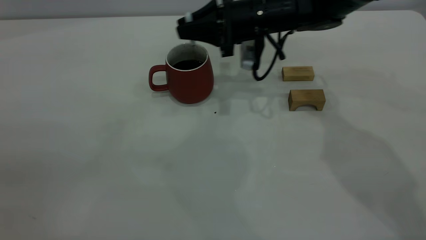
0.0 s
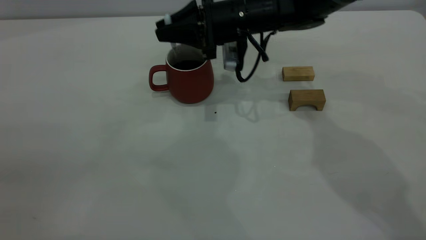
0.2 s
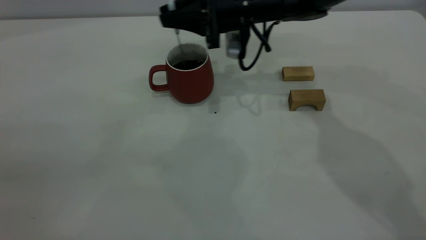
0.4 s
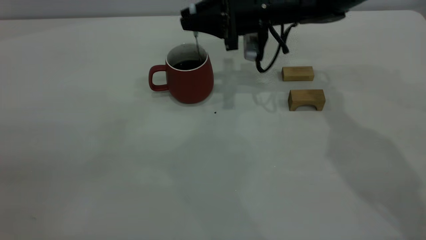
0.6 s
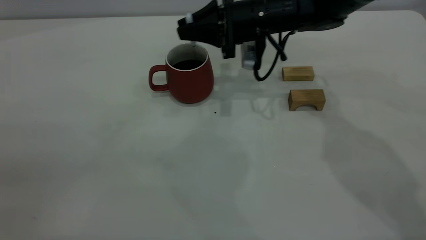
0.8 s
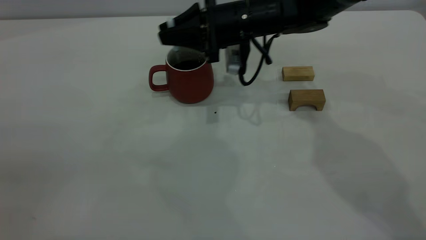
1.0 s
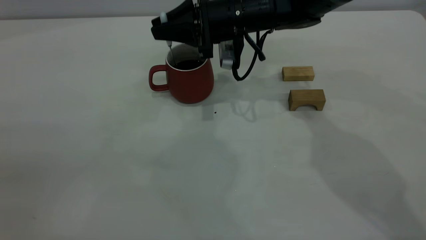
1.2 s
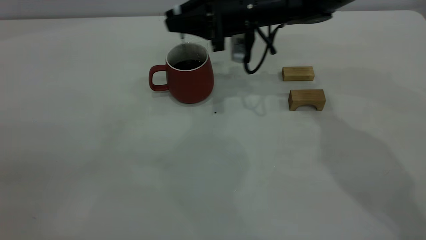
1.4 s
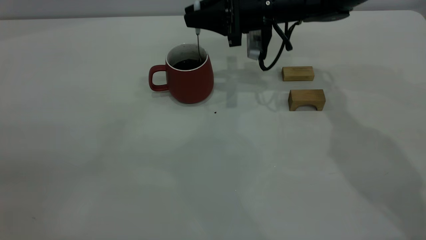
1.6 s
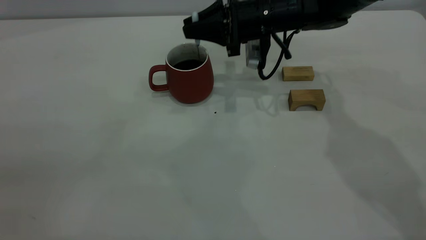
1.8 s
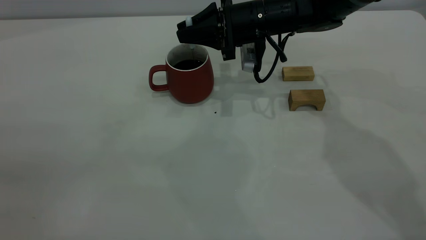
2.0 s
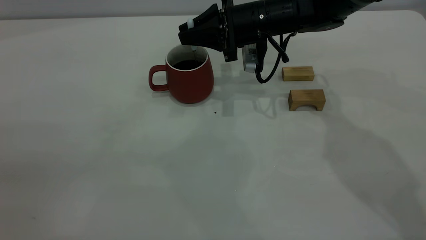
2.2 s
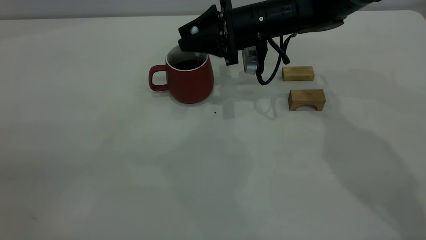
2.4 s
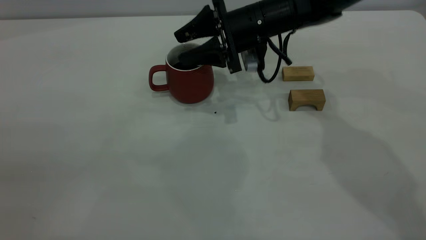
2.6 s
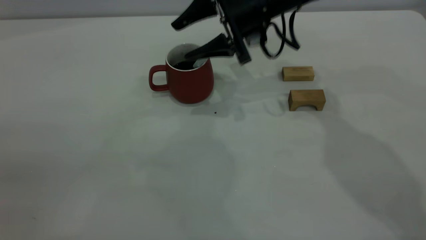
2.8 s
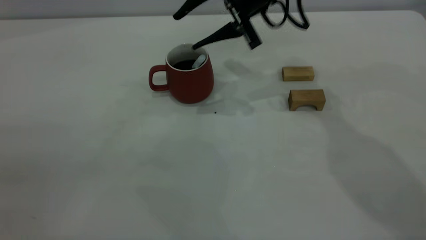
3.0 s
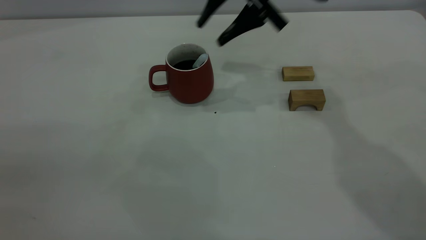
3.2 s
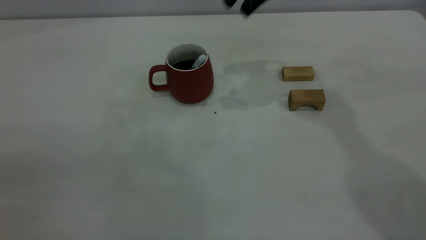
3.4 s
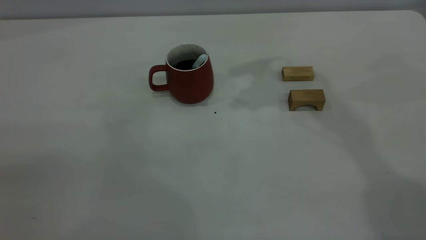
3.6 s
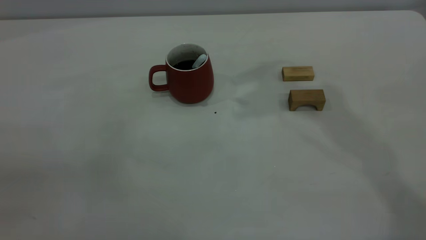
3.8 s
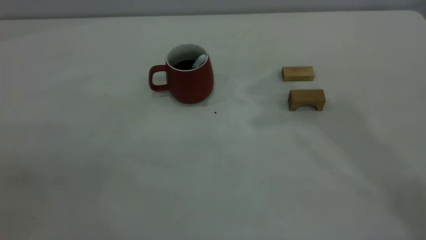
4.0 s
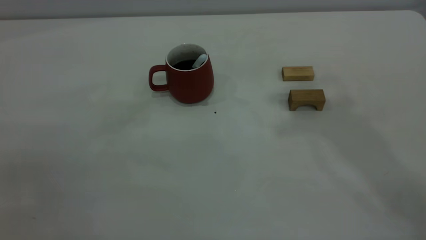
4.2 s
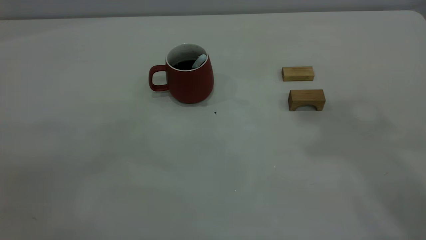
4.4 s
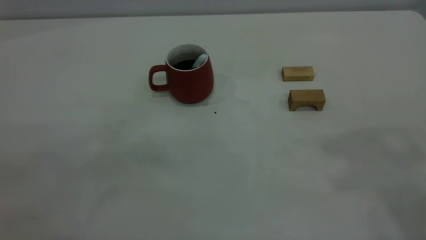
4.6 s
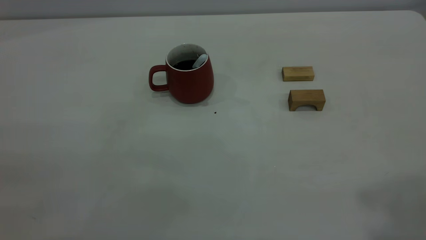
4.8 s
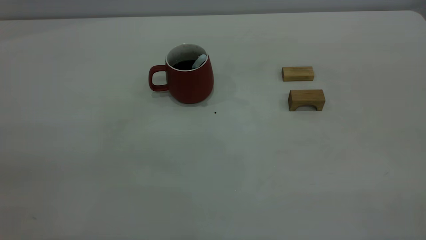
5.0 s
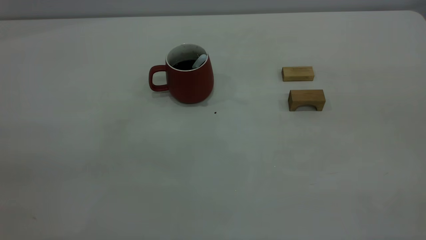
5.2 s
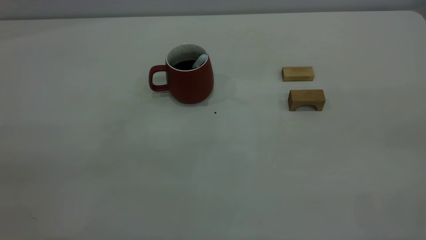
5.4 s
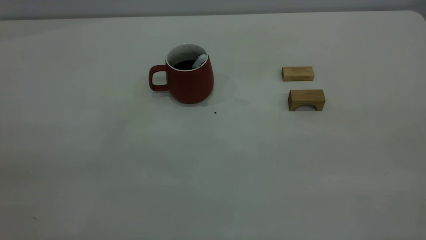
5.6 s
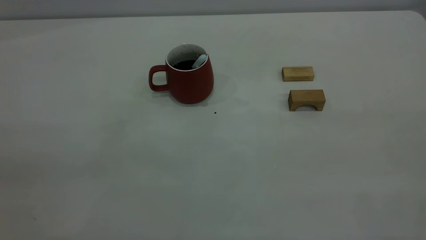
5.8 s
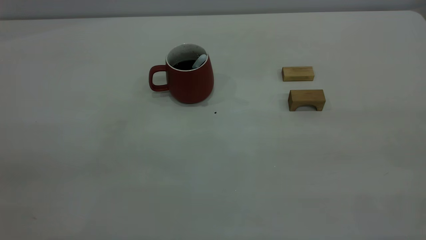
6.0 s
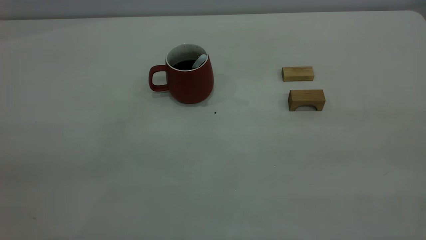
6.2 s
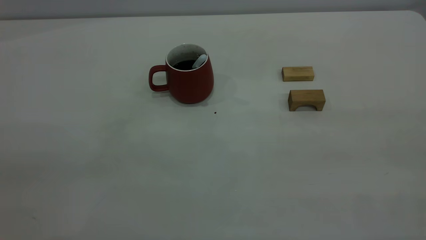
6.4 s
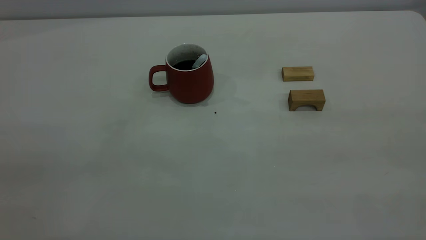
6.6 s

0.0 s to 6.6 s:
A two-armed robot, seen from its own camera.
Step, 0.0 to 3.0 s: Stir the coffee in the cup.
0.0 to 1.6 s: The grippers move only a little.
1.6 to 3.2 s: The right gripper shifts some 10 cm upward, and opens its fingers.
3.2 to 5.0 s: The right gripper shifts roughly 50 cm backward, upward and to the right, and closes its fingers.
